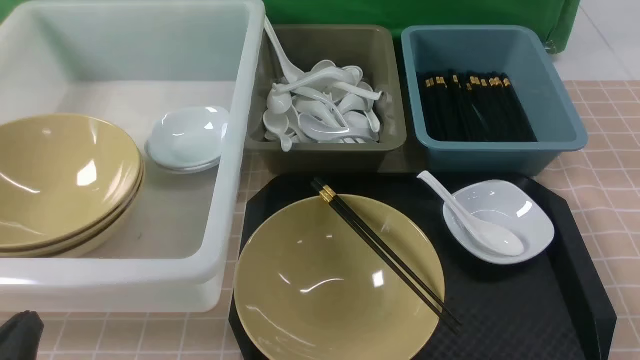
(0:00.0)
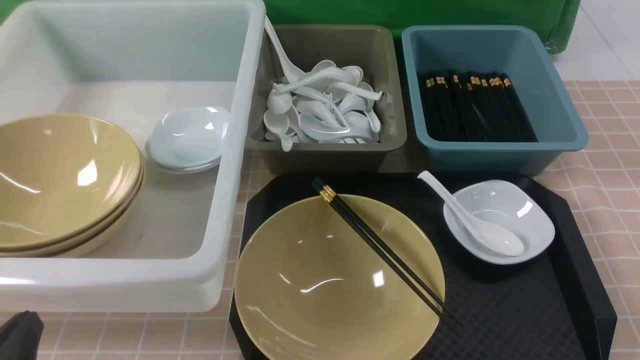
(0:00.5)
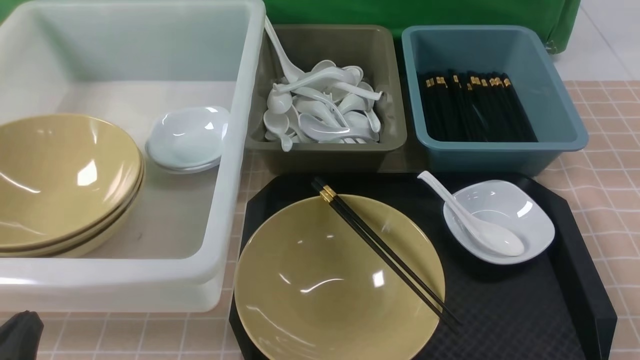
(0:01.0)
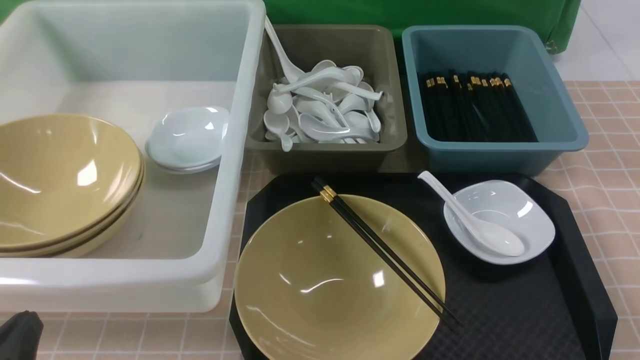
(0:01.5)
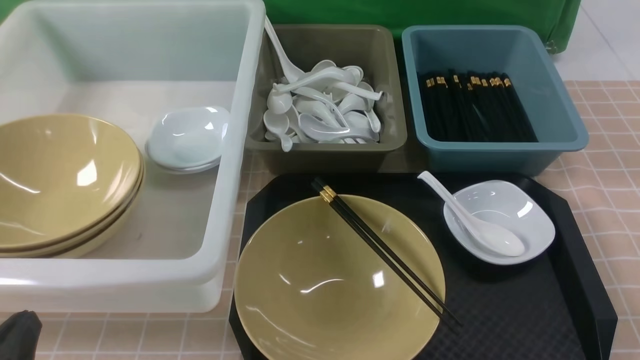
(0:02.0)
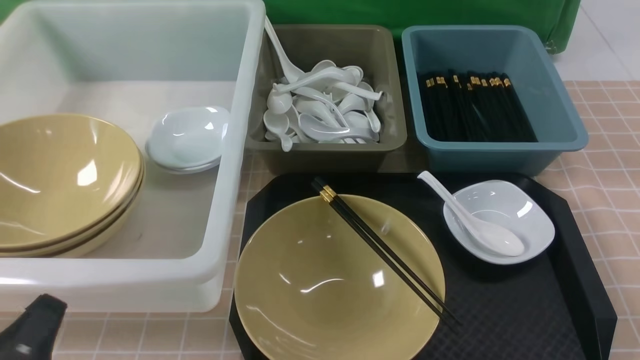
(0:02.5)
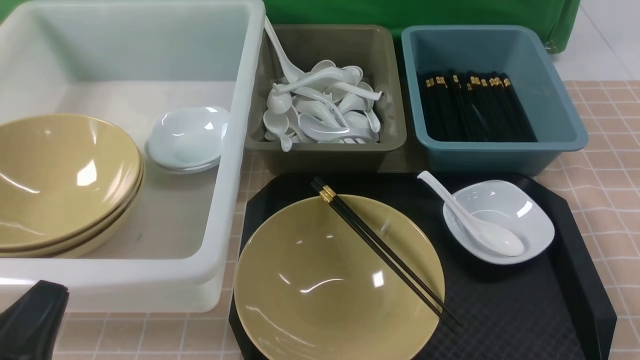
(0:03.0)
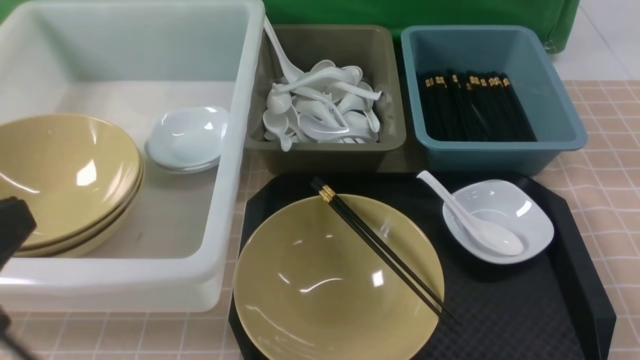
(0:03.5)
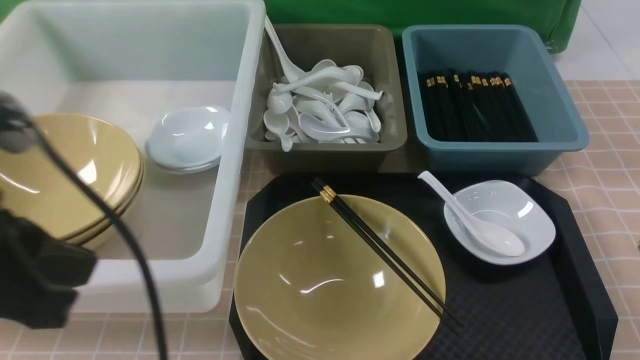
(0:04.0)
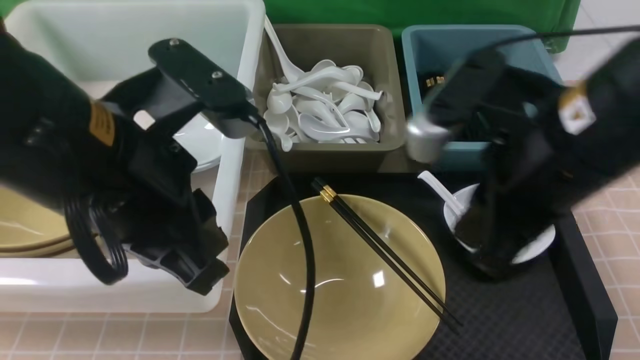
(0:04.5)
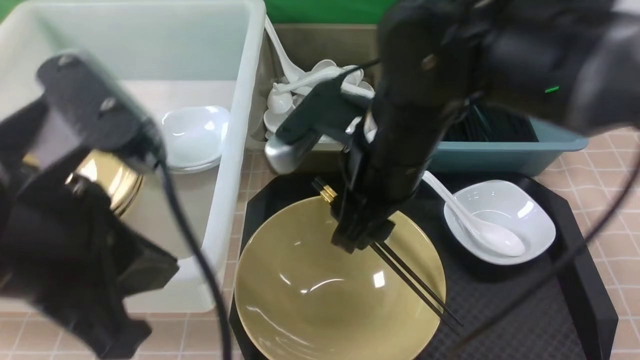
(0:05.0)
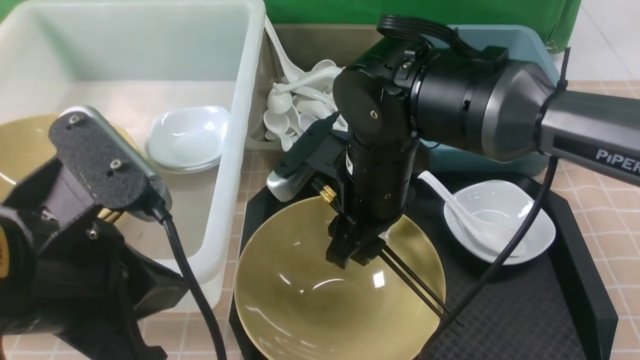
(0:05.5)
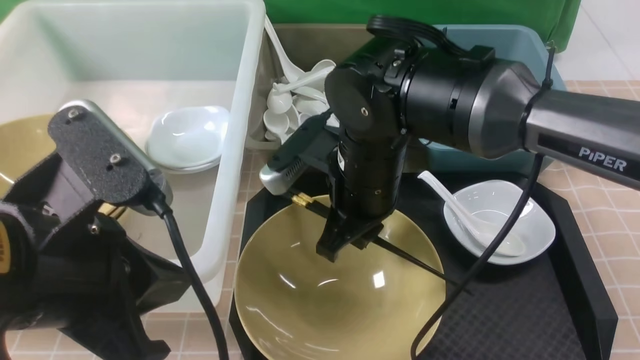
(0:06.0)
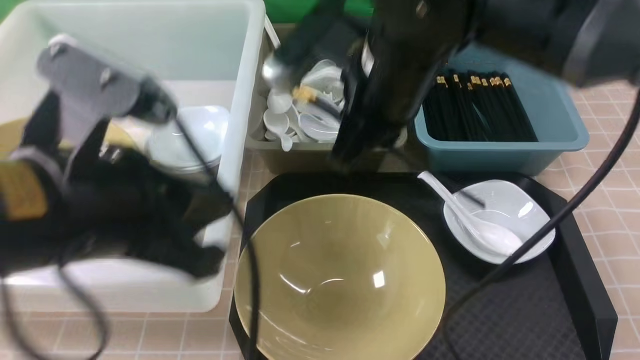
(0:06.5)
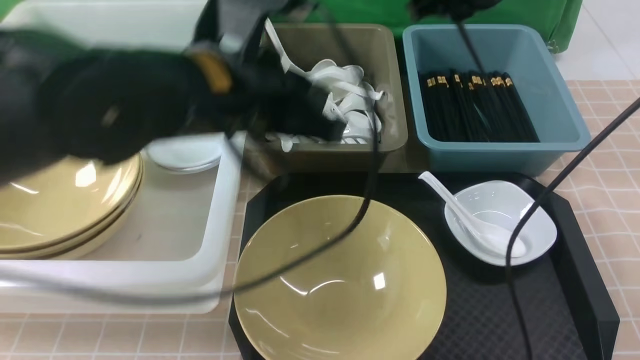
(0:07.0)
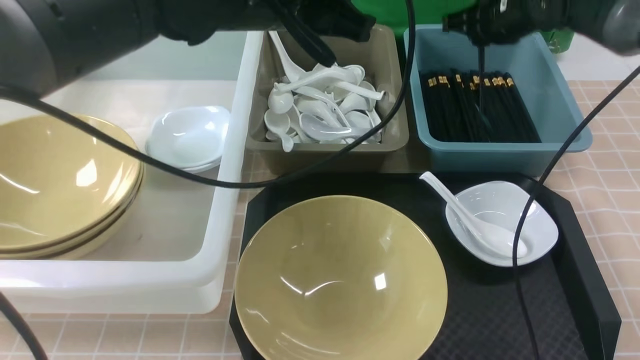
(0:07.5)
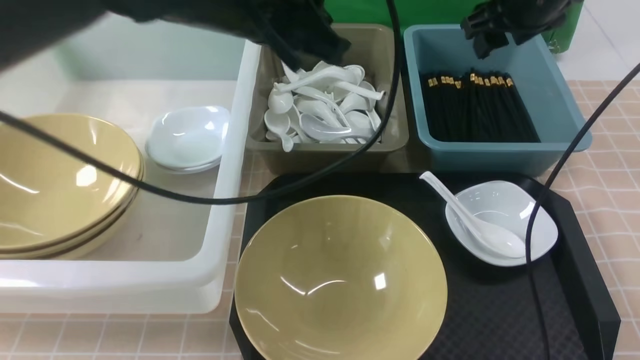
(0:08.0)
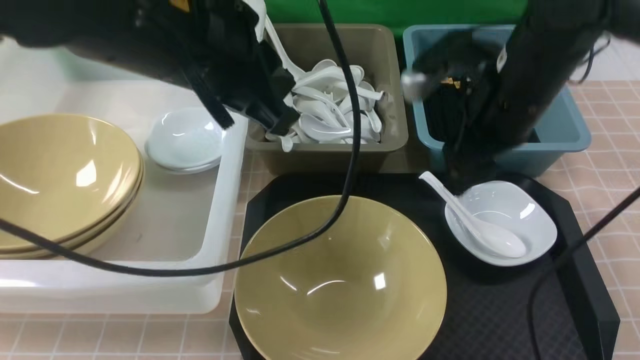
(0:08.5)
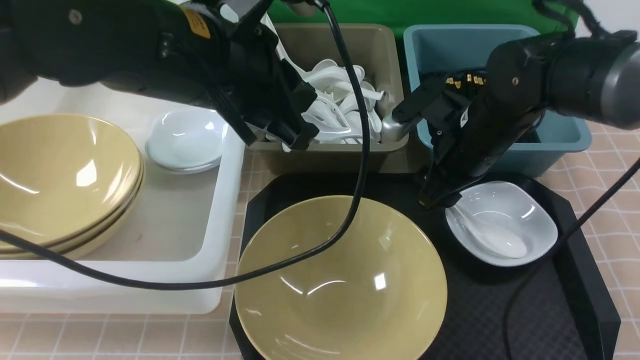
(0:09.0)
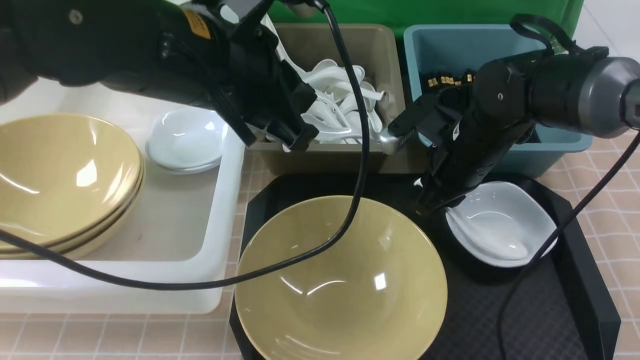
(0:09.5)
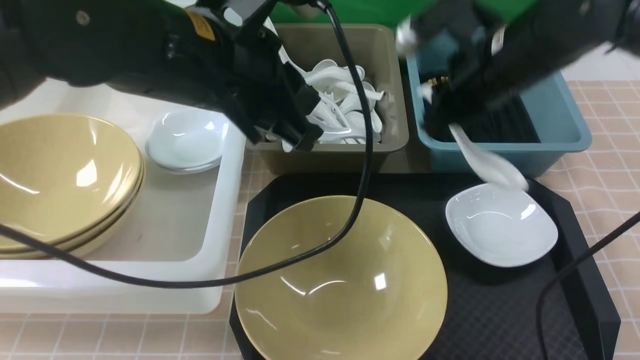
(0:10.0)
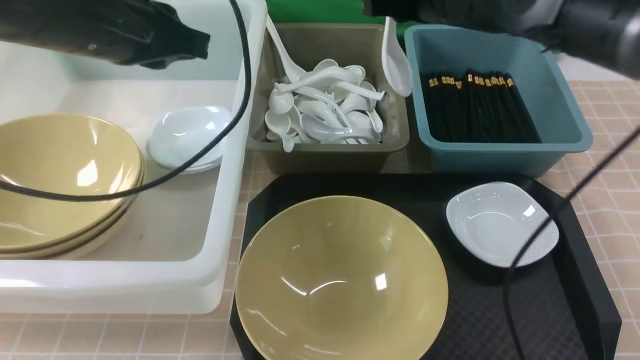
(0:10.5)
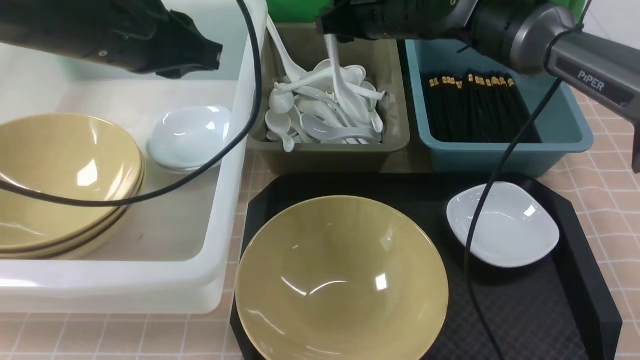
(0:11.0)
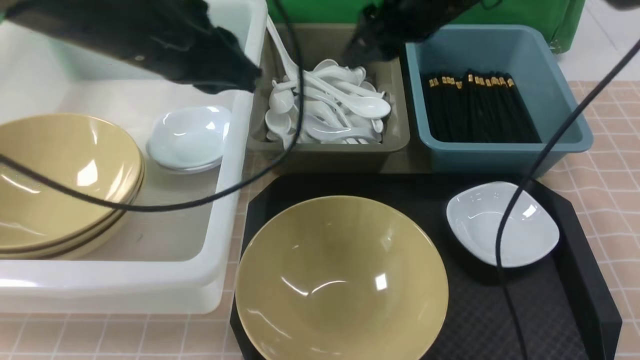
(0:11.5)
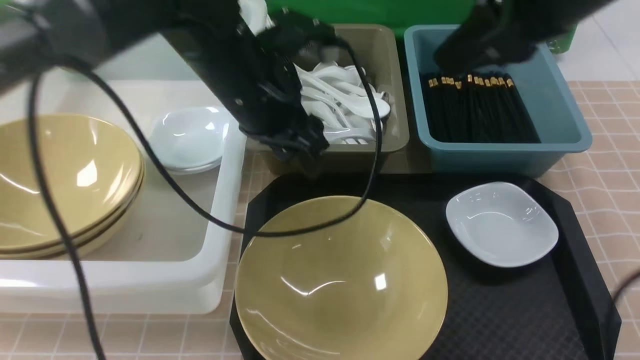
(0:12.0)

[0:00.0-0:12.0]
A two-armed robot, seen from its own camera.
Task of the whole recording: on brown table put chopsticks spoon bowls plates into blue grey white boxes.
Step, 0:00.0 to 0:06.0: use the right arm to grab the chopsticks.
Step, 0:06.5 to 0:08.0: use the right arm to put the chopsticks into the small storage box on the right.
Step, 0:08.5 to 0:10.0: use the right arm to grab the soup spoon in the middle.
Step, 0:10.5 to 0:11.0: use the right arm to put the soup spoon into the small storage box in the middle.
0:00.0 to 0:02.0: Both grippers stay about where they are.
0:02.0 to 0:04.0: The left gripper goes approximately 20 cm upward.
0:04.0 to 0:06.0: The right gripper is displaced to the left, forward and downward by about 30 cm, and opens, then closes once more. Meanwhile the left gripper ends up roughly 5 cm from where it was.
0:06.0 to 0:08.0: The left gripper is displaced forward and to the right by roughly 20 cm, while the right gripper goes about 25 cm to the right, forward and upward, and opens.
0:08.0 to 0:10.0: The right gripper travels backward and to the left by roughly 10 cm, moves some 10 cm downward and comes back, and closes.
0:10.0 to 0:12.0: The right gripper shifts about 15 cm upward and backward, and opens and closes again; the left gripper is displaced downward and forward by approximately 10 cm, travels to the left and back again, approximately 10 cm each way, and opens.

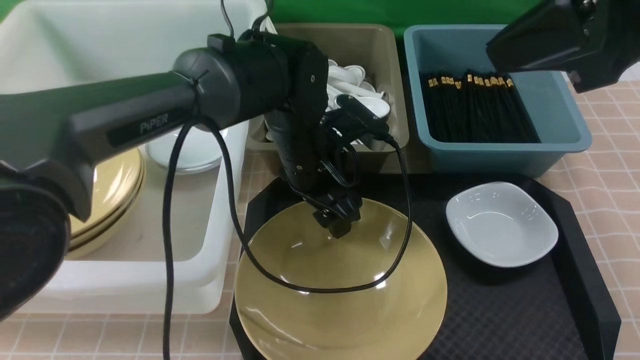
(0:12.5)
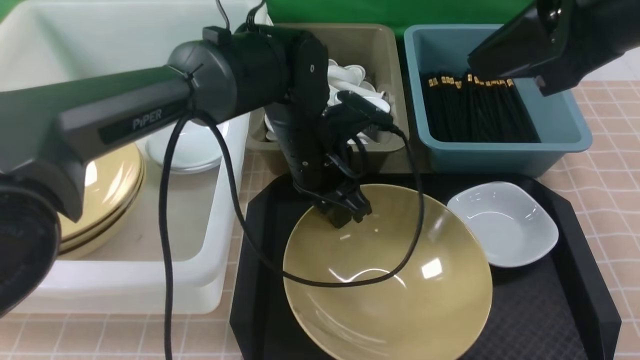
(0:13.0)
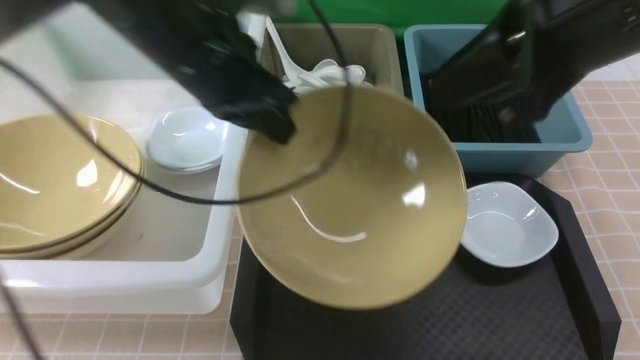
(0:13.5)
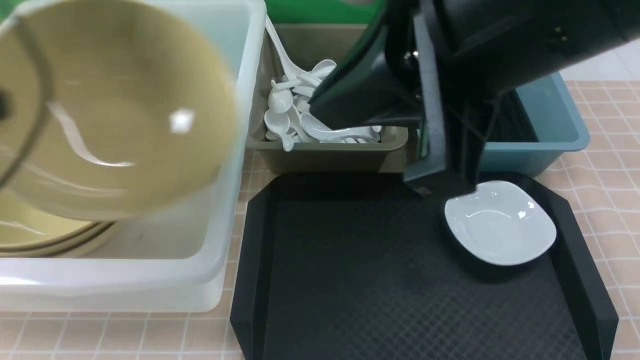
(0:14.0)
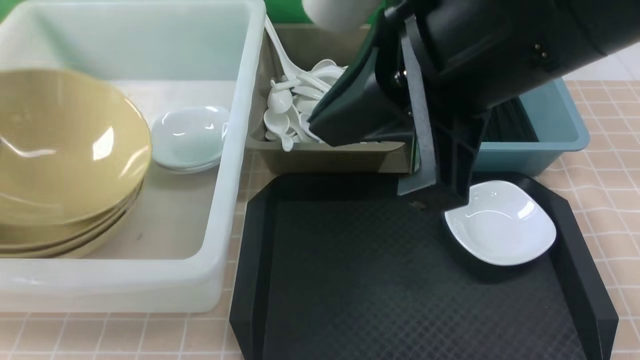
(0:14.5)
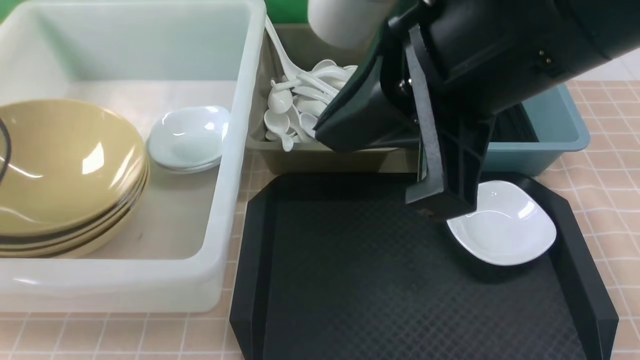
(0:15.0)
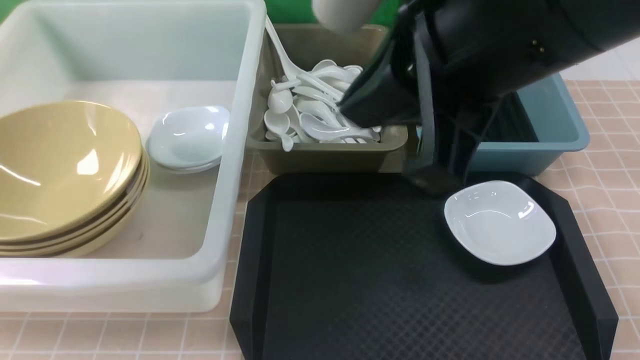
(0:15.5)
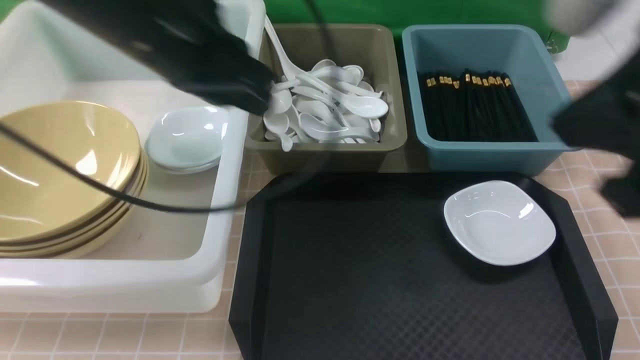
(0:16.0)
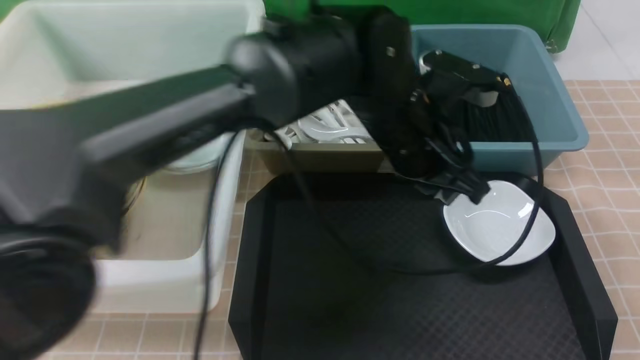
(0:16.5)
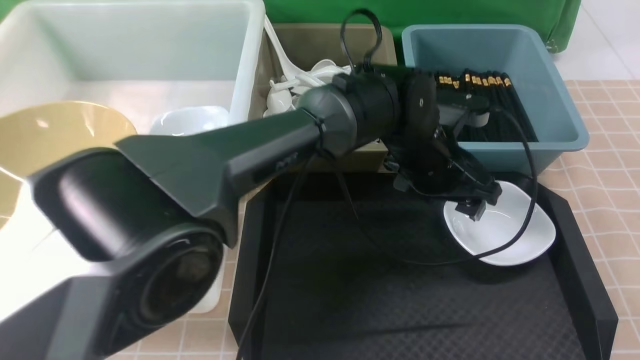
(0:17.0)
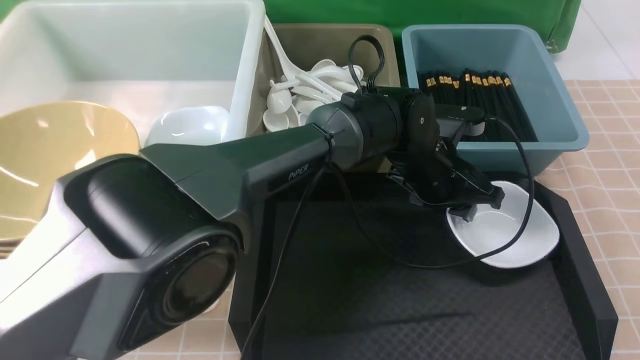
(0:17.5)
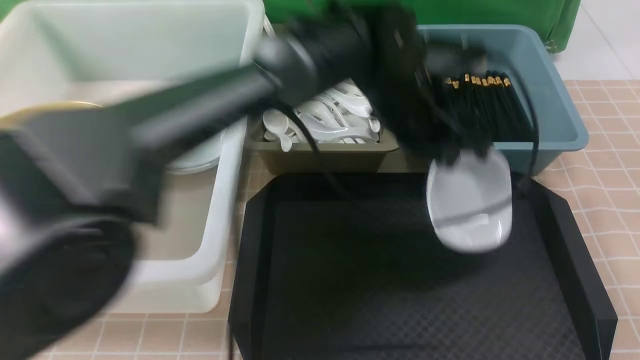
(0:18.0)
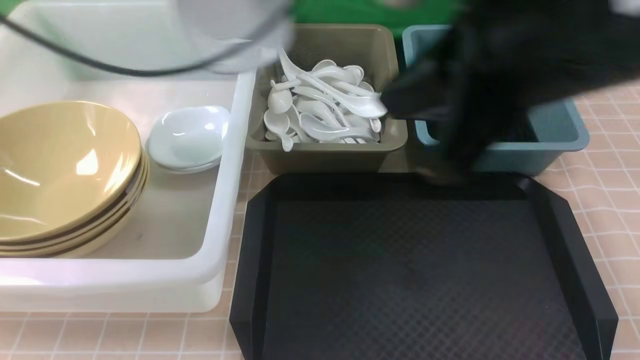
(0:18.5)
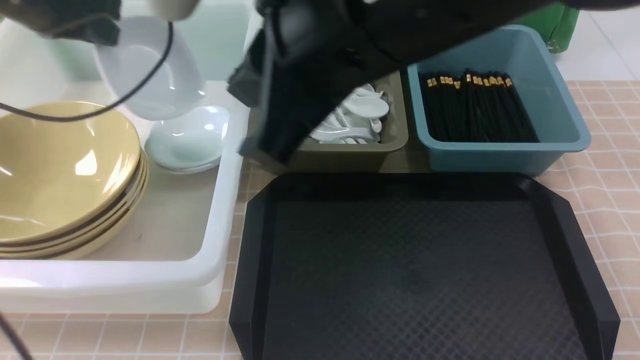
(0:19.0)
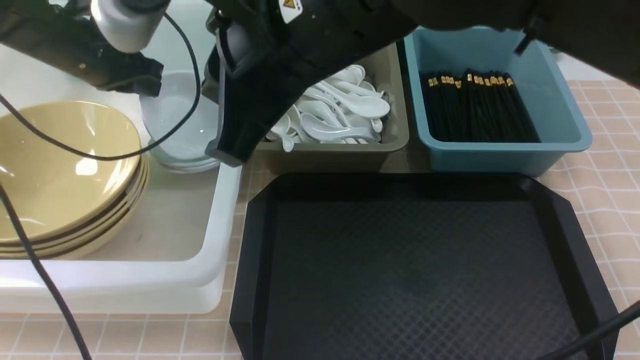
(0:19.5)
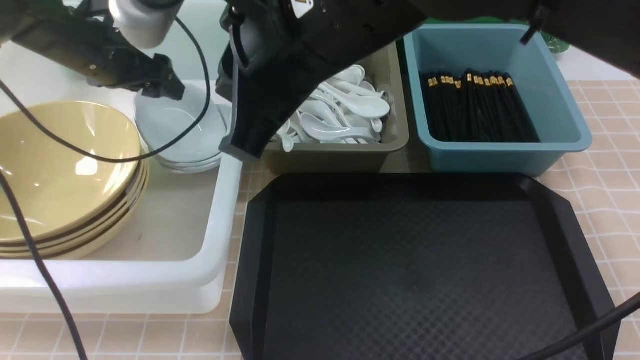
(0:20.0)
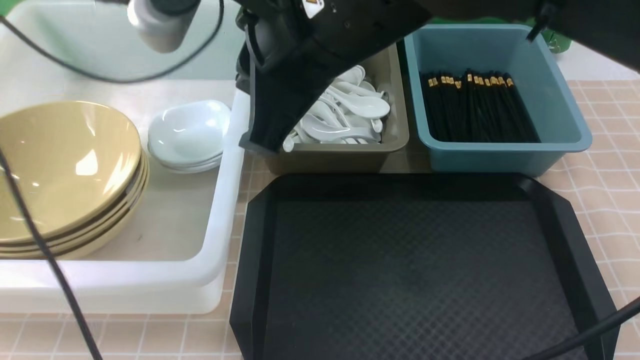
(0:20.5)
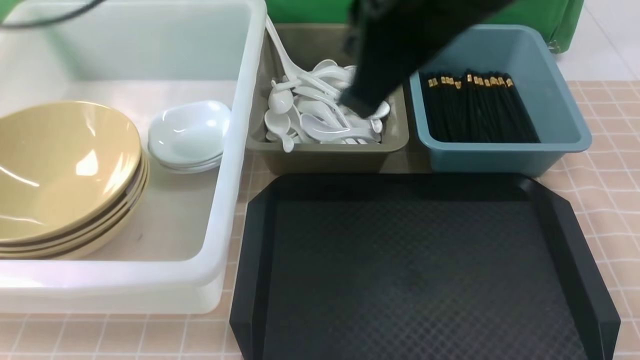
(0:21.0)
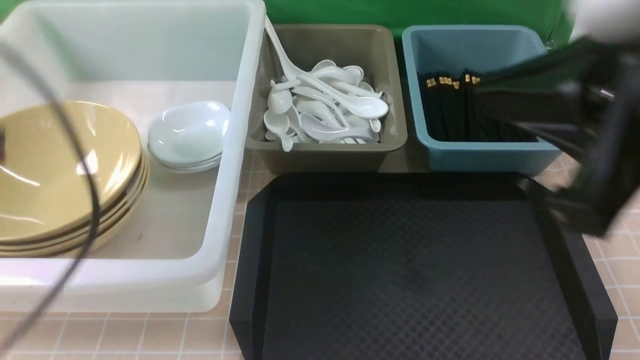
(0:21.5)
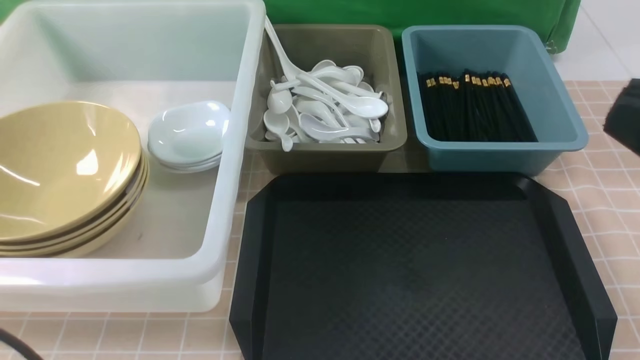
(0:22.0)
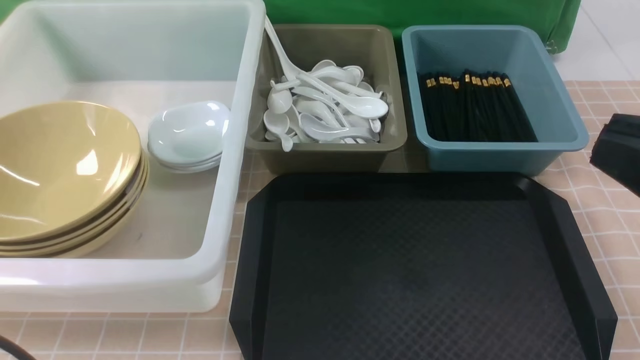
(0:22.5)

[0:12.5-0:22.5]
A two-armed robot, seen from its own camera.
Task of the whole recording: on brown table put chopsticks spoon bowls plates into blue grey white boxes.
Step, 0:14.0 to 0:15.5: use the left arm to put the noodle bowl into the large storage box on the left.
Step, 0:16.0 to 0:17.5: use the left arm to grab the plate.
Step, 0:18.0 to 0:20.0: use the left arm to put the plate into the large storage box on the left.
0:12.5 to 0:14.5: The left gripper shifts about 40 cm to the left, and closes its fingers; the right gripper goes approximately 10 cm to the left.
0:14.5 to 0:16.5: The right gripper shifts about 20 cm to the right and backward. Meanwhile the left gripper moves to the right, approximately 50 cm, and opens, then closes again.
0:16.5 to 0:18.5: The left gripper travels to the left and upward by some 30 cm, and opens, then closes again. The right gripper shifts roughly 20 cm to the left and forward.
0:18.5 to 0:20.5: The right gripper moves to the left and forward, some 10 cm. The left gripper goes some 15 cm forward, to the left and downward, and opens up.
0:20.5 to 0:22.5: The right gripper heads to the right and backward, covering approximately 25 cm, while the left gripper moves backward, approximately 40 cm, and closes its fingers.
